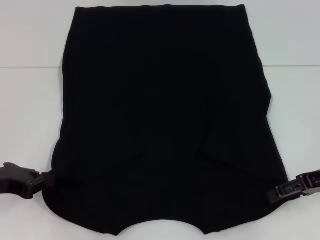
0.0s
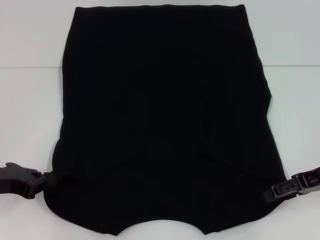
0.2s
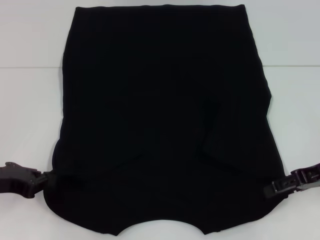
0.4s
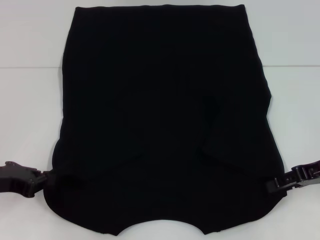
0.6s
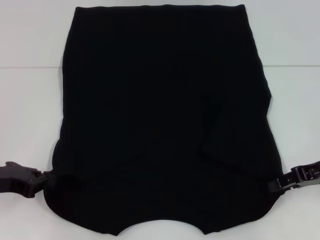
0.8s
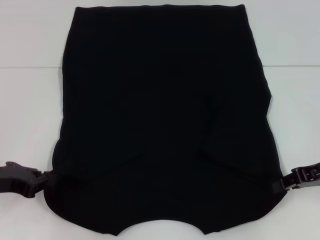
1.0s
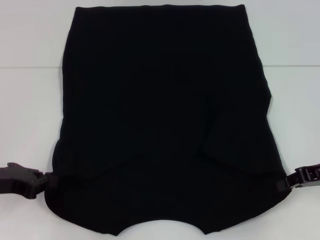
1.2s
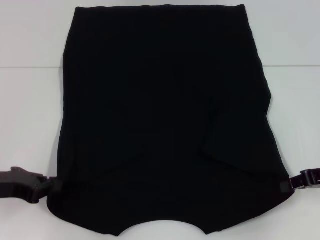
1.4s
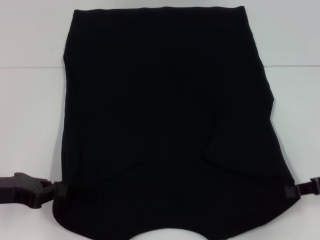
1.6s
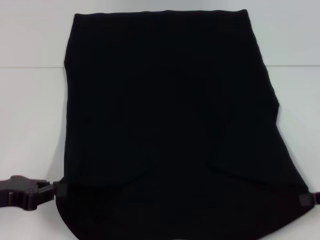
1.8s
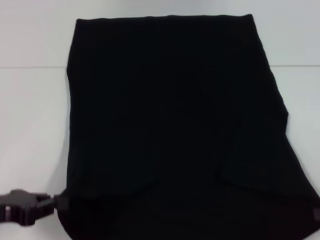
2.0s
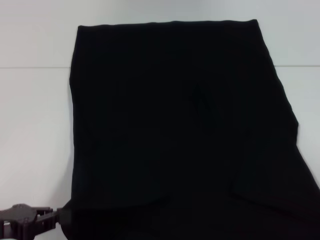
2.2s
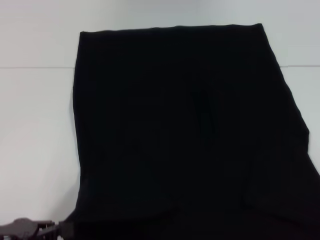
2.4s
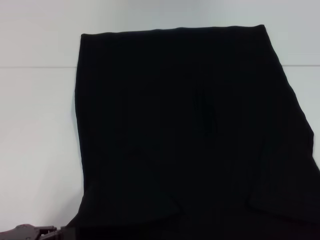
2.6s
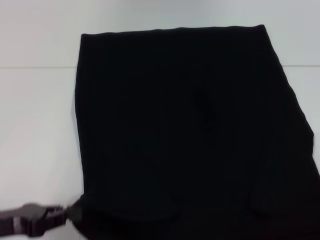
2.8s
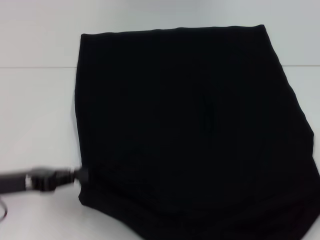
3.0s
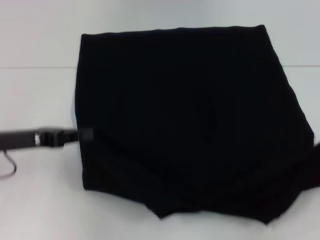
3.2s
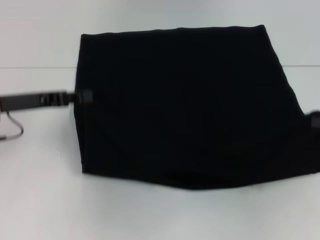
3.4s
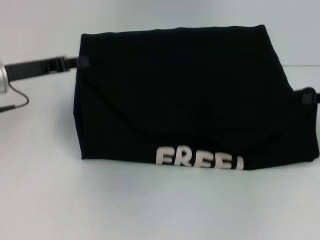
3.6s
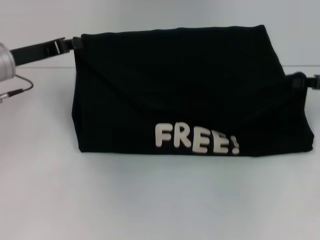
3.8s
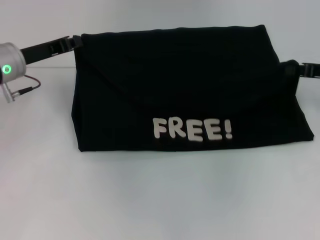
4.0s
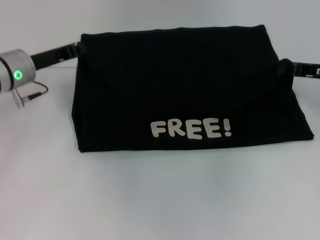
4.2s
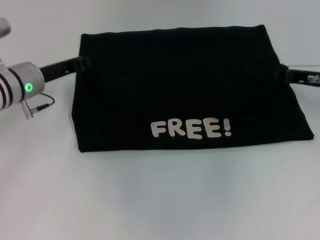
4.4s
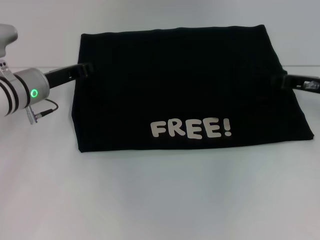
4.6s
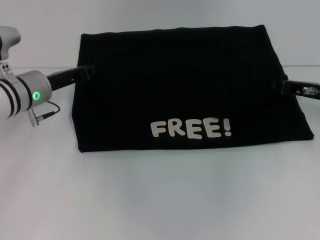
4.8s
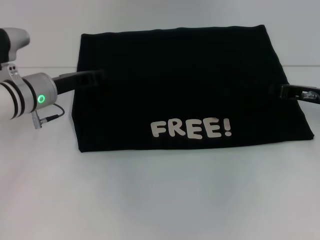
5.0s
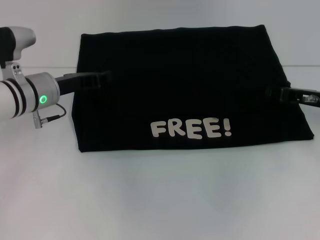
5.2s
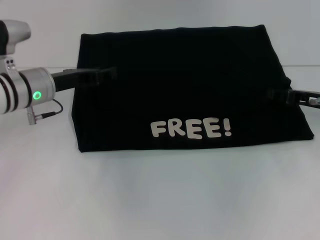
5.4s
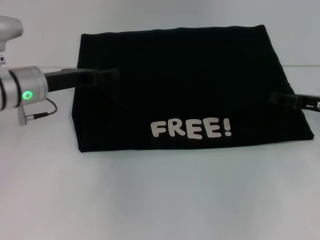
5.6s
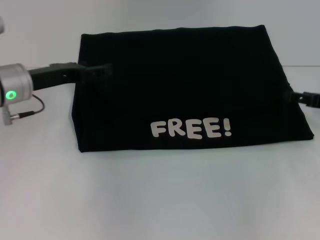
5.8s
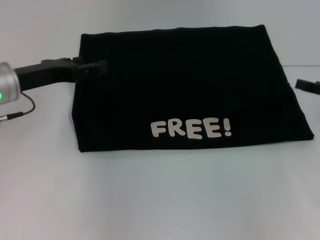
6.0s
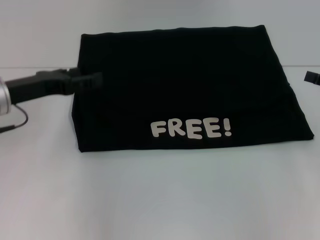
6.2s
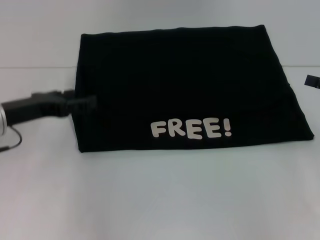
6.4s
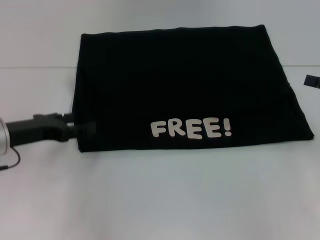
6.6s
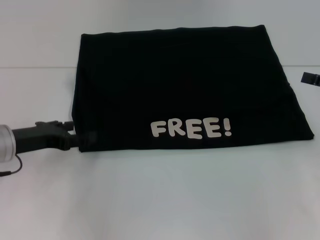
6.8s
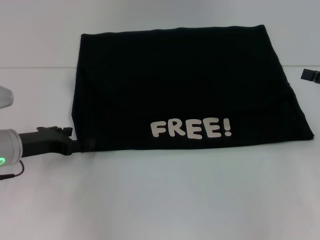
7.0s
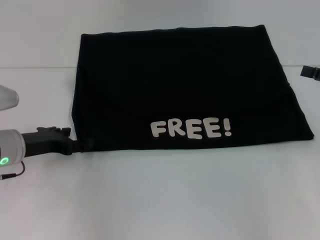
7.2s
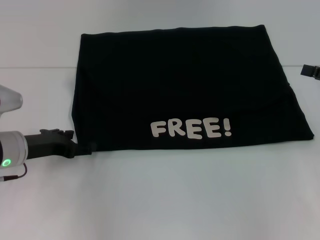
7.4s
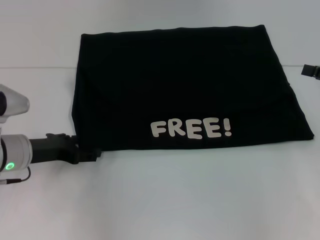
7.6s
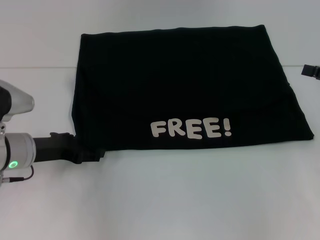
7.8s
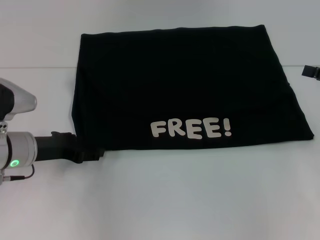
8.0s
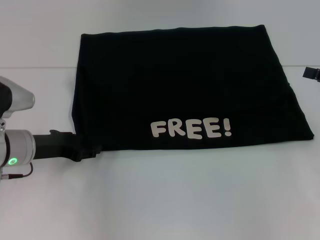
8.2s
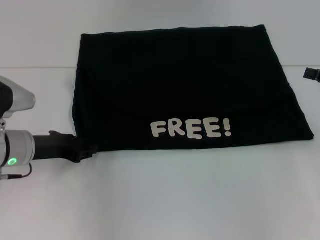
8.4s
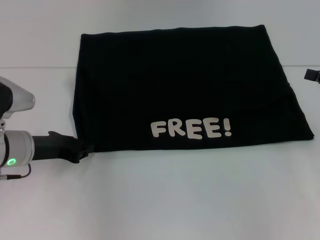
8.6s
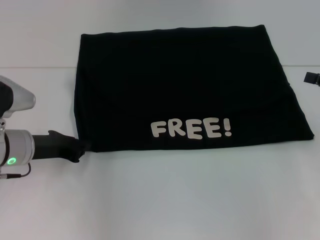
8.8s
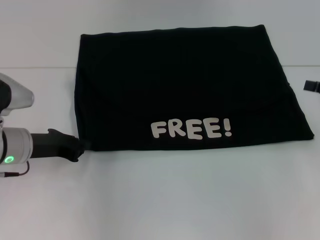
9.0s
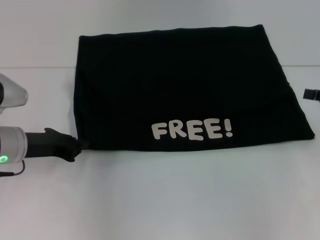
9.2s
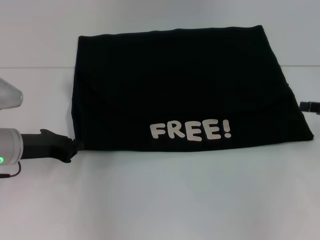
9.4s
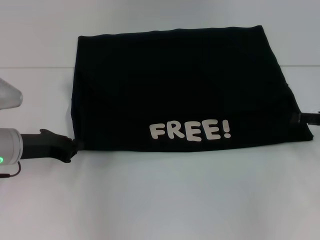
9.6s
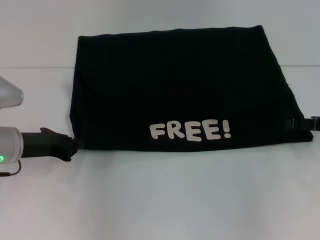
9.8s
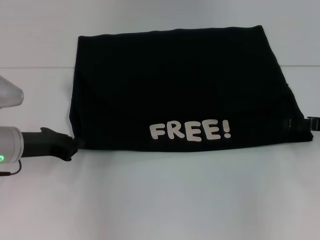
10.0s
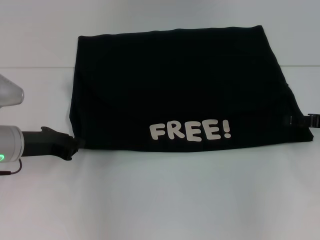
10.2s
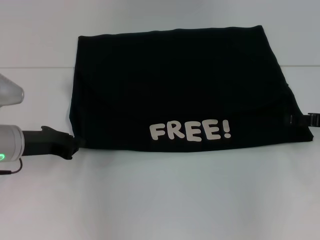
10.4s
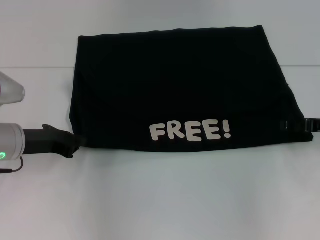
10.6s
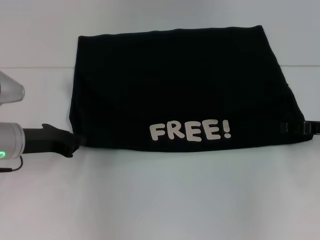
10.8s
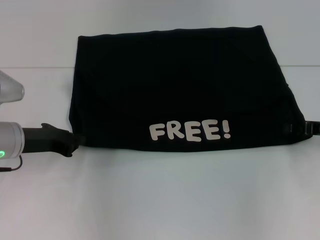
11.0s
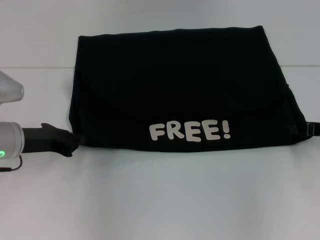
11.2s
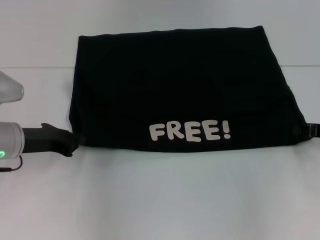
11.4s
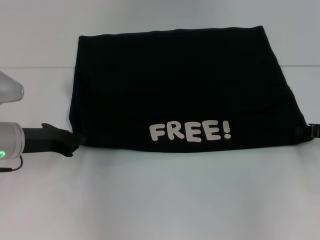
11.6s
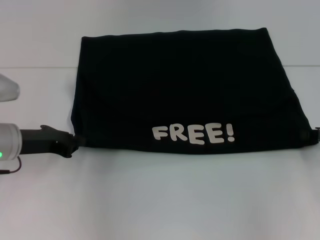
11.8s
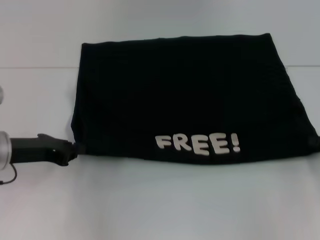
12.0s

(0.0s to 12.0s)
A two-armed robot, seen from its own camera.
Step, 1.4s - 5.6s: Fold the clothes with your left hand.
Step, 1.4s - 5.6s: Fold the clothes with your right hand.
0.0s - 1.6s: The right gripper closes up.
1.6s - 3.0s: The left gripper reaches roughly 10 cm backward, then returns. Meanwhile the right gripper goes about 10 cm to the right and backward.
3.0s - 4.4s: The left gripper heads forward, covering roughly 15 cm. Meanwhile the right gripper is displaced forward and to the left by roughly 20 cm.
4.4s - 6.0s: The right gripper travels backward and to the right by roughly 10 cm, and opens its fingers, while the left gripper shifts by some 5 cm, and opens up.
6.0s - 7.6s: The left gripper moves downward, roughly 10 cm.
7.6s - 9.0s: The left gripper closes up.
9.0s - 10.4s: The right gripper shifts by some 5 cm.
10.4s - 12.0s: The right gripper changes place by about 5 cm, and closes.

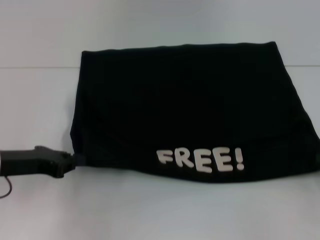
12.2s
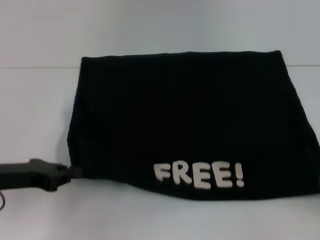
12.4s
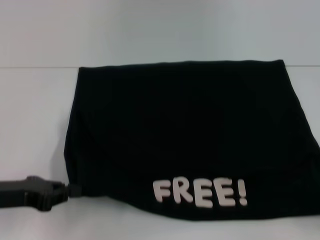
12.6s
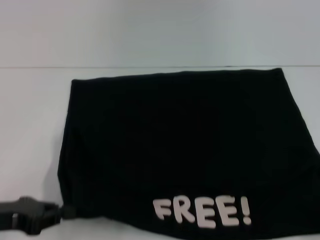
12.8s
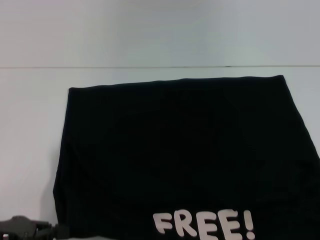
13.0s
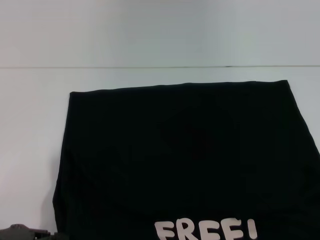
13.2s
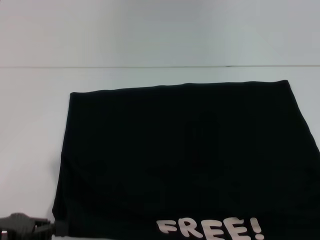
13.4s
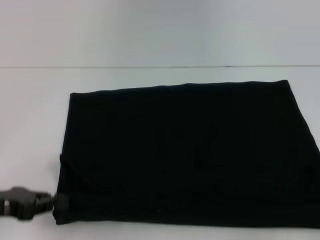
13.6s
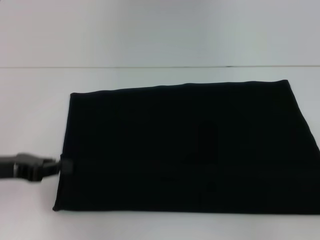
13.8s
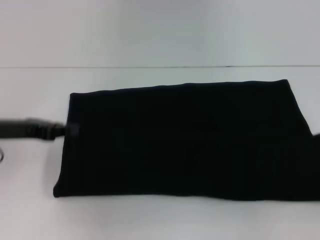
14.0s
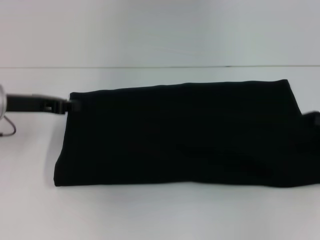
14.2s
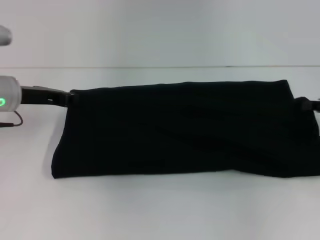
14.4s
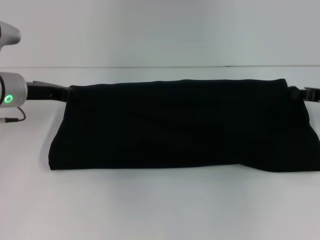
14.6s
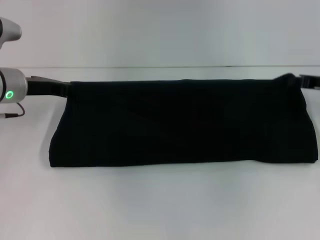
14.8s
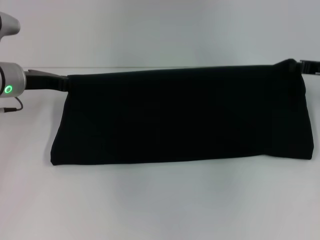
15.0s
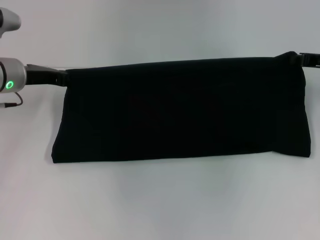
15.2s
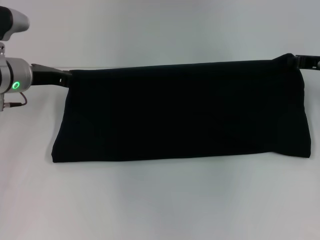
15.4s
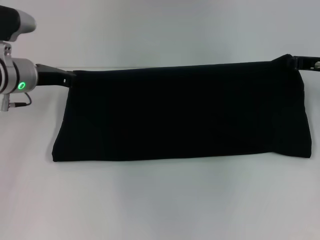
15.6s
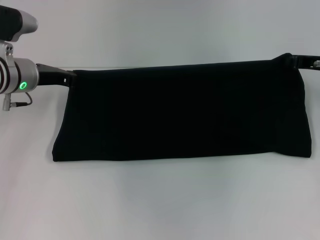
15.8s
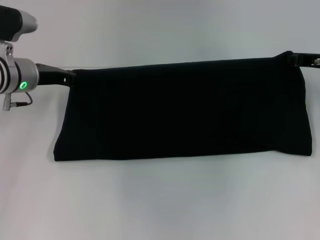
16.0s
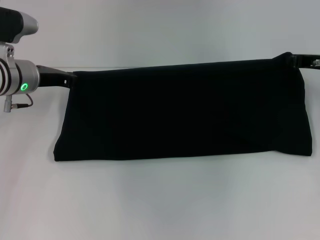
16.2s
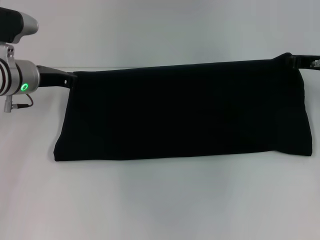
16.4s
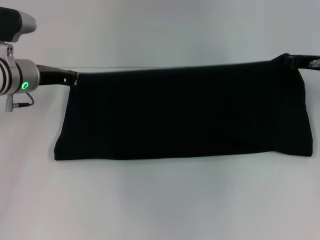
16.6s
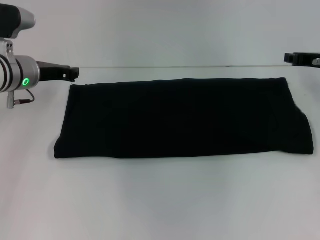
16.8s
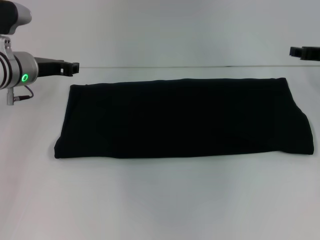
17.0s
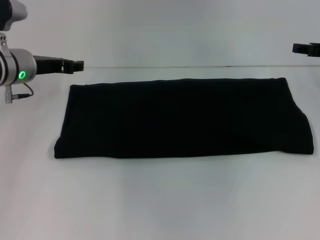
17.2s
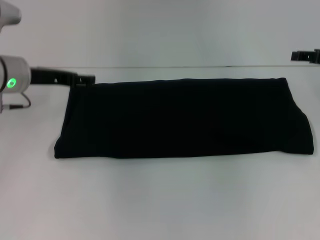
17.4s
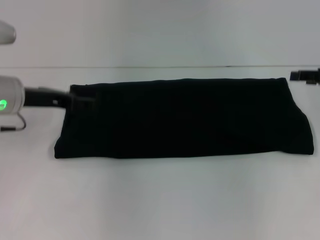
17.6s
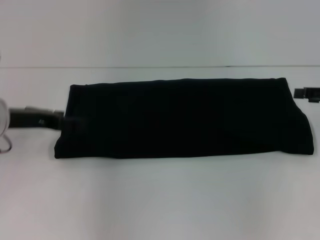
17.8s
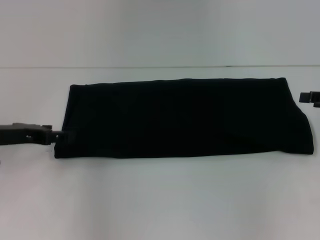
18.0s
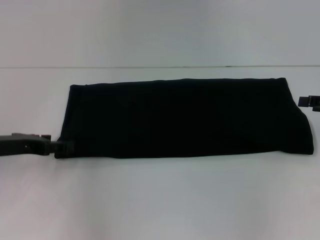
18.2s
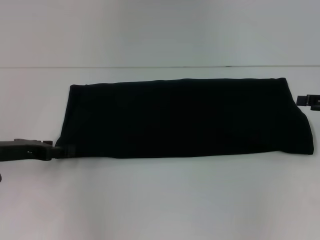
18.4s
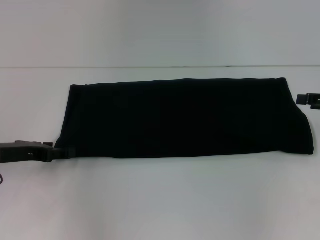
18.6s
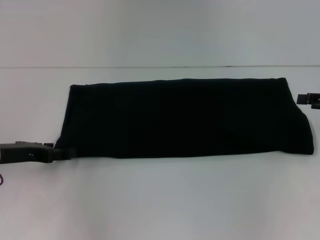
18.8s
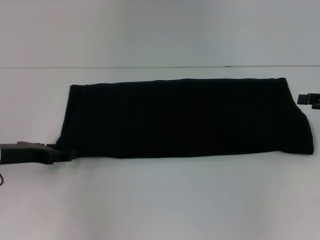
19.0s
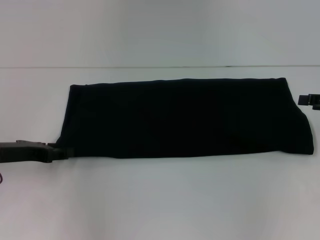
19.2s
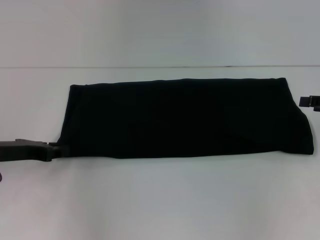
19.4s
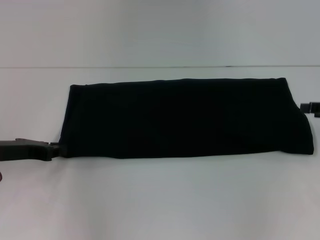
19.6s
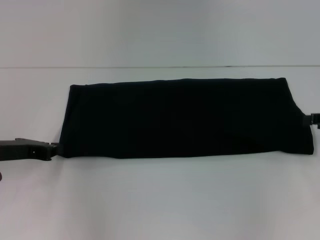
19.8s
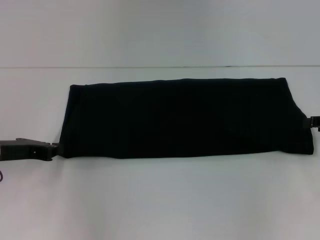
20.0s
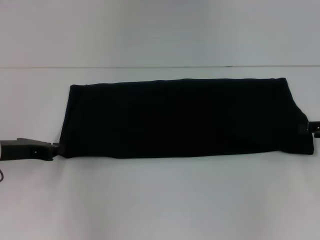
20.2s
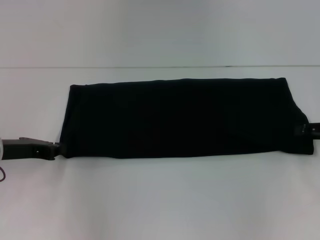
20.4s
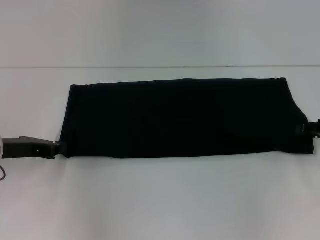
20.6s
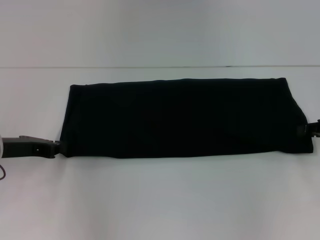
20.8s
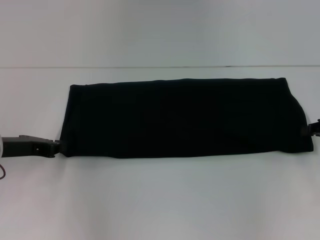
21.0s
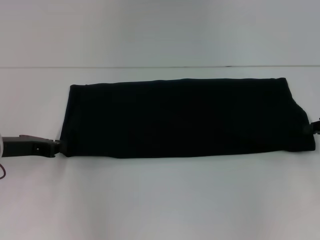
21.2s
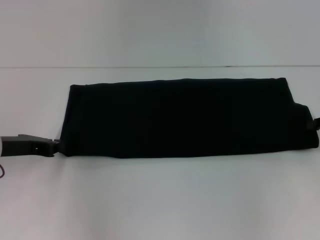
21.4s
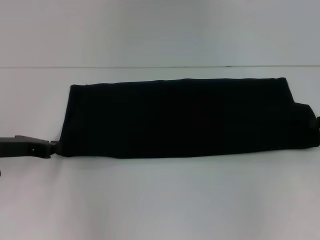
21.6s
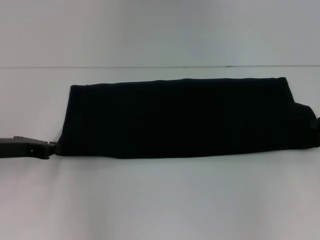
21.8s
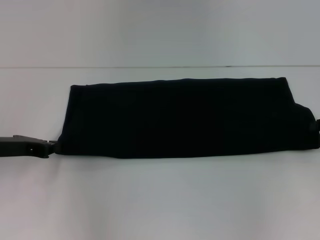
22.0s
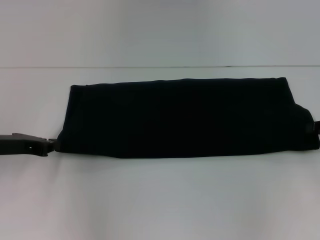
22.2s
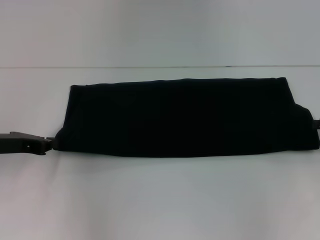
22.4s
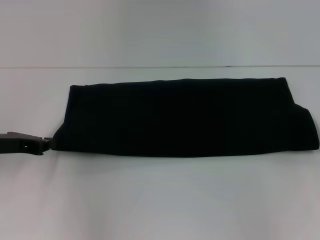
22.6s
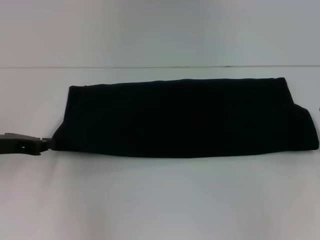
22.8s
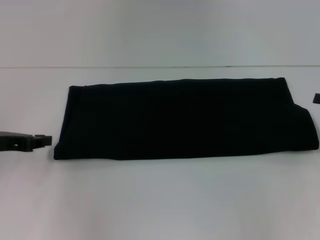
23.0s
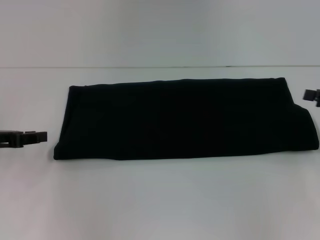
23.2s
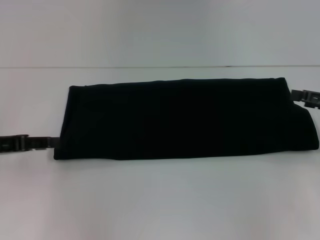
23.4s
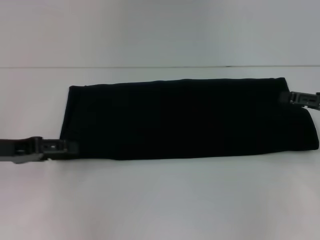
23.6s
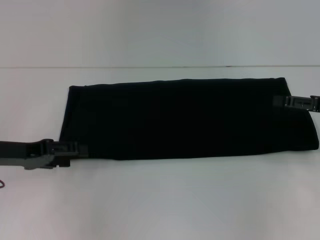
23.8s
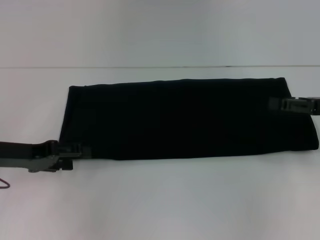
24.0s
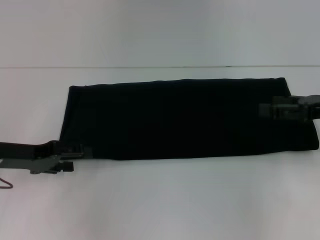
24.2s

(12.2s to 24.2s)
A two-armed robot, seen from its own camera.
Step, 13.4s - 17.0s: Fold the clothes with your right hand.
12.2s - 13.8s: The left gripper travels backward and back again, about 10 cm each way, while the right gripper travels backward by approximately 5 cm.
13.8s - 15.2s: The left gripper travels forward by some 15 cm. The right gripper goes about 20 cm forward and to the left.
15.2s - 16.6s: There are only small adjustments of the grippers.
16.6s - 18.2s: The left gripper shifts some 15 cm backward and to the left, and opens up. Meanwhile the right gripper goes approximately 10 cm backward and to the right, and opens up.
18.2s - 19.8s: The left gripper closes.
21.2s - 22.6s: The right gripper opens.
22.6s - 24.2s: The right gripper is displaced to the left by approximately 10 cm, and opens up. Meanwhile the left gripper opens up.
